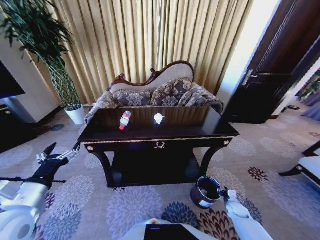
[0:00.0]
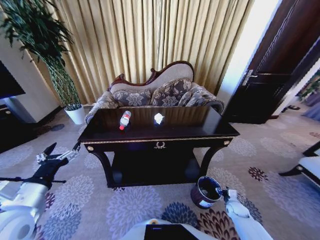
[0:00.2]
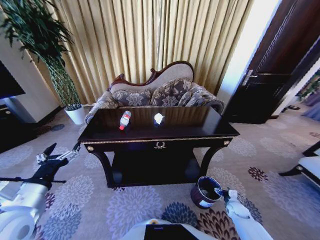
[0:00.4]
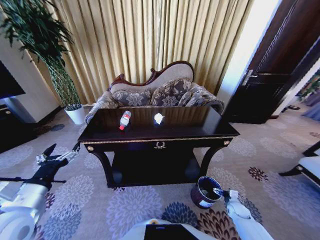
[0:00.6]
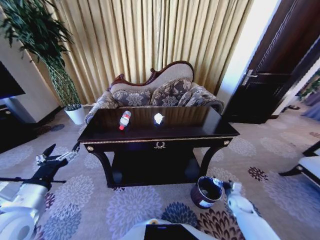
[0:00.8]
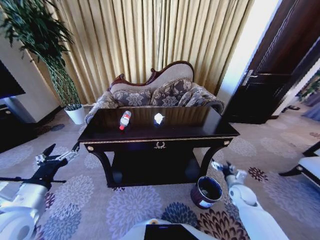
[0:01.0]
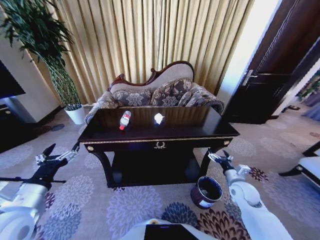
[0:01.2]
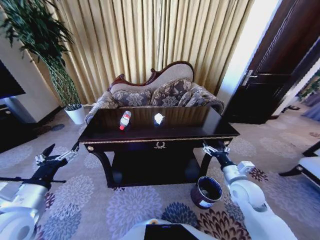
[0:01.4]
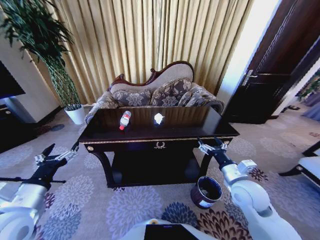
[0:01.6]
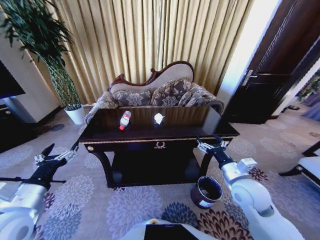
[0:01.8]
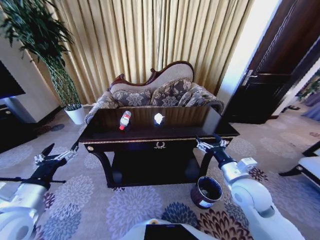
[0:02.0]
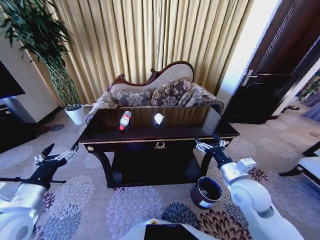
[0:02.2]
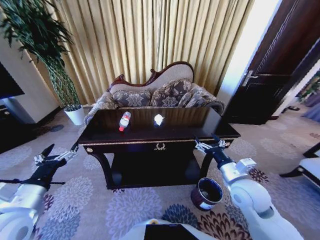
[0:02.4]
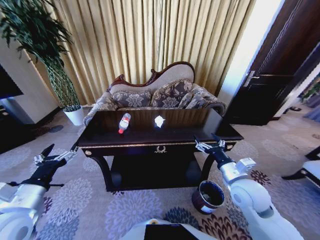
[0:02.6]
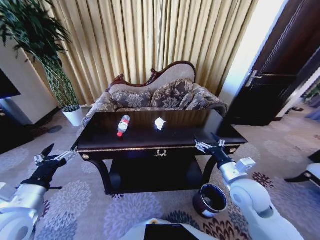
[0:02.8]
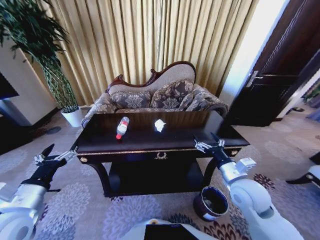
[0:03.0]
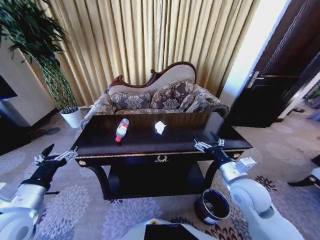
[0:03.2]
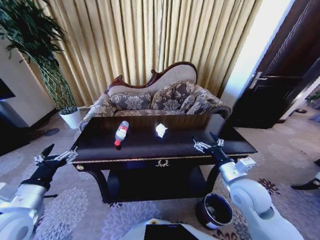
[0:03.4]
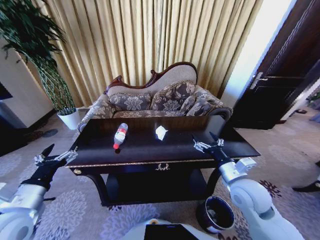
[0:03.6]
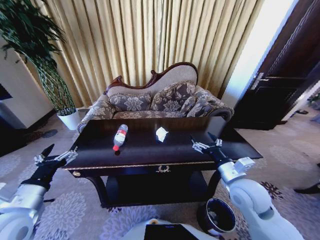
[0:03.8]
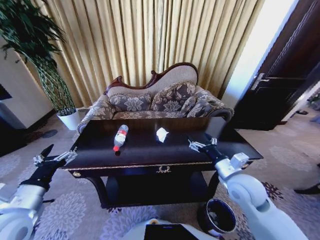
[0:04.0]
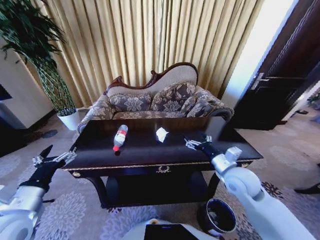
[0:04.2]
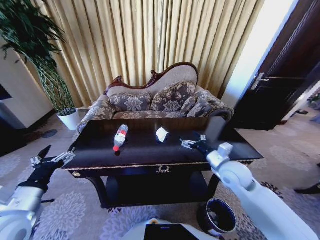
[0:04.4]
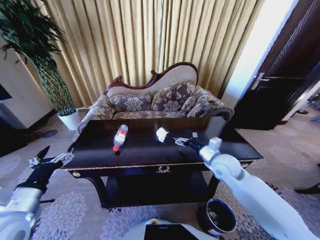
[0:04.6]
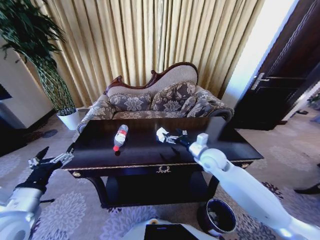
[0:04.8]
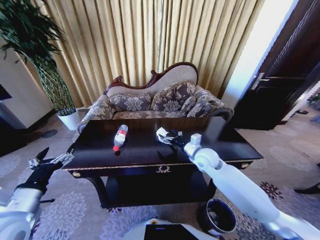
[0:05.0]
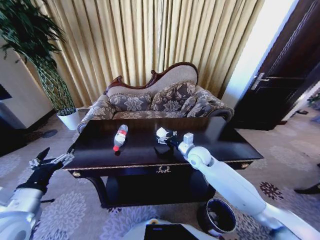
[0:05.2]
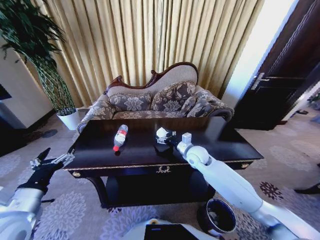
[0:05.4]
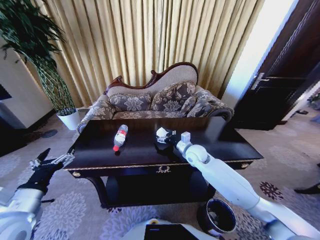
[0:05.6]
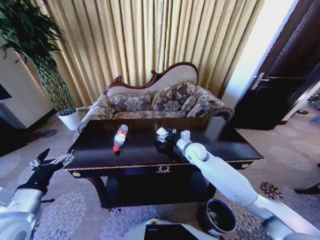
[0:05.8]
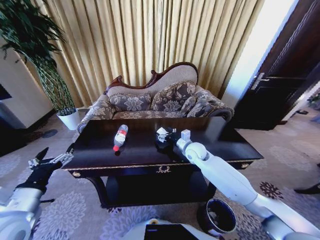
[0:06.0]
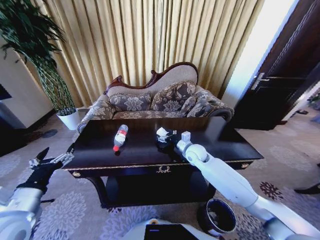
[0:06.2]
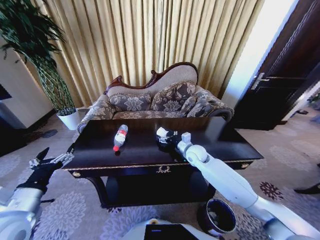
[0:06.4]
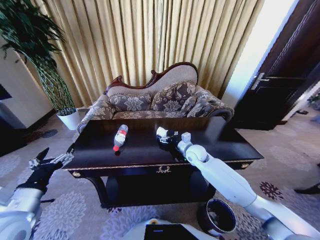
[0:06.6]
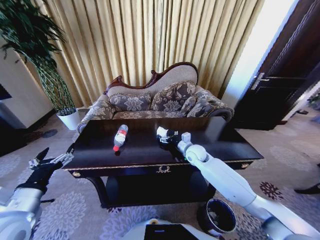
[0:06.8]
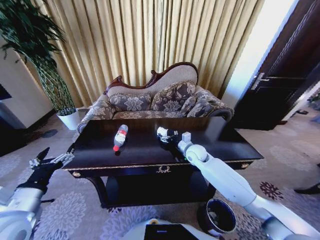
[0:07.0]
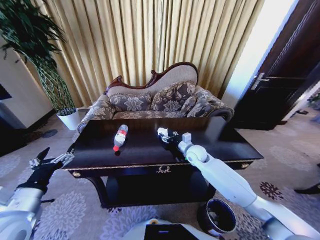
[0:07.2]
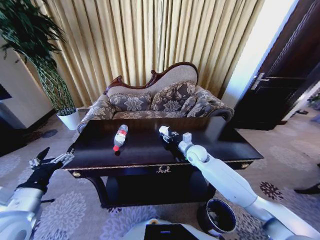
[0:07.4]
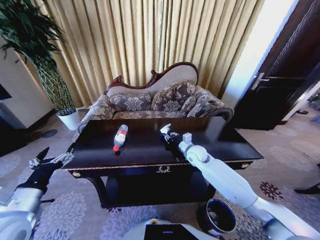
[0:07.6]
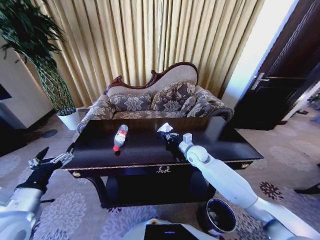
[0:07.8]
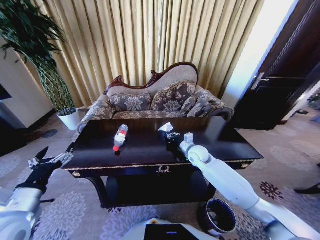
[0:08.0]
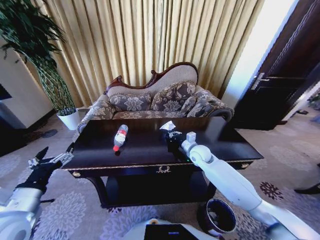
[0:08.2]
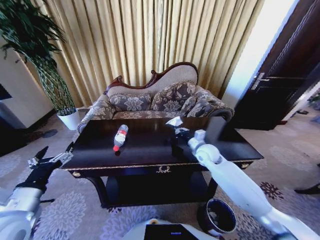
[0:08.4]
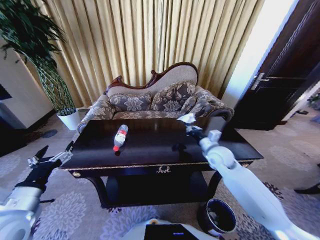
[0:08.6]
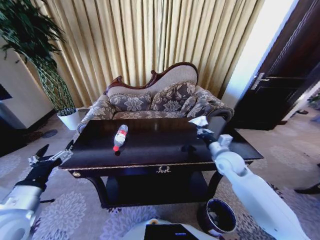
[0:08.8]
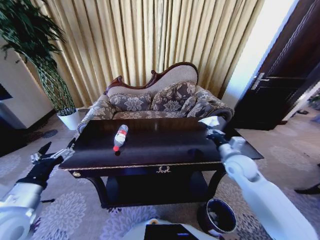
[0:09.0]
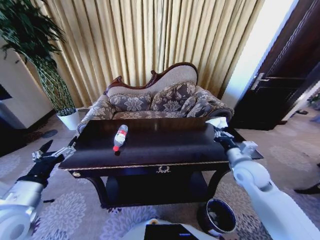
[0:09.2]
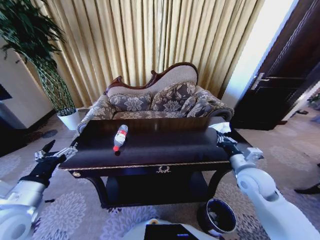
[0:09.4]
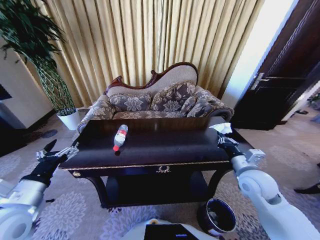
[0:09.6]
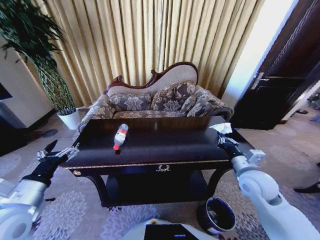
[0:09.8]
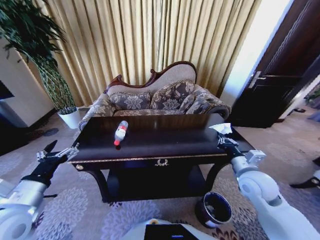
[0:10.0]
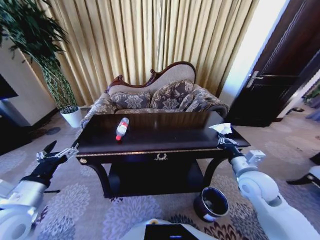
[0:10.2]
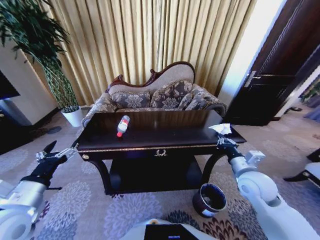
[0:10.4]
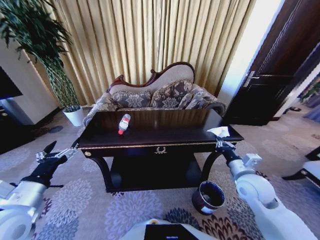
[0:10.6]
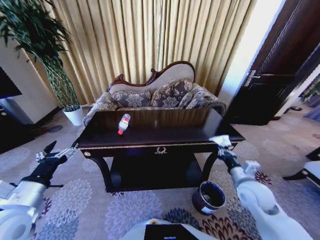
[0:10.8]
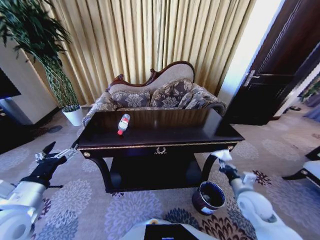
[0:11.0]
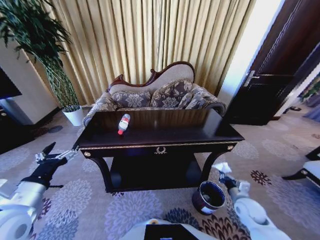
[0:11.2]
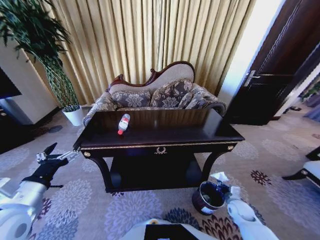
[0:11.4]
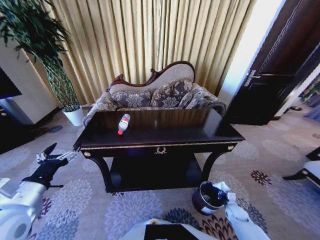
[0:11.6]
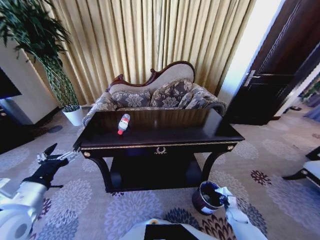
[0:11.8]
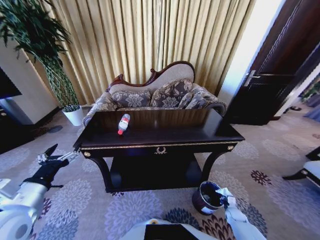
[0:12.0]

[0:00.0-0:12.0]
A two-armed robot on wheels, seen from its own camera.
Task of the whole recording: Move to the front of the table and place the trash on the table into the trash bin.
0:00.0 to 0:01.6: The right gripper shifts some 35 cm upward and to the left, and opens its fingers.
0:03.0 to 0:04.4: The right gripper travels forward by approximately 5 cm.
0:04.4 to 0:06.0: The right gripper is displaced forward and to the left by roughly 15 cm.
0:06.0 to 0:07.6: The right gripper closes up.
0:07.6 to 0:09.0: The right gripper heads to the right, backward and upward, covering approximately 20 cm.
0:09.0 to 0:10.4: The right gripper shifts approximately 5 cm backward.
0:10.4 to 0:12.0: The right gripper goes about 40 cm downward.

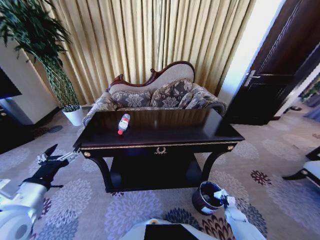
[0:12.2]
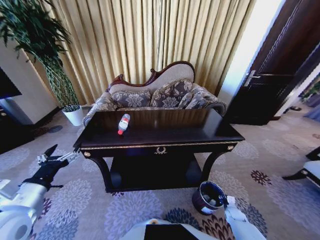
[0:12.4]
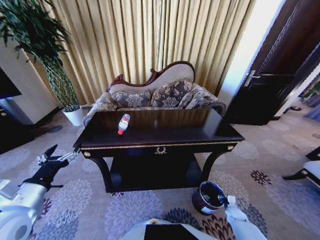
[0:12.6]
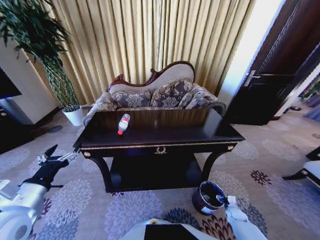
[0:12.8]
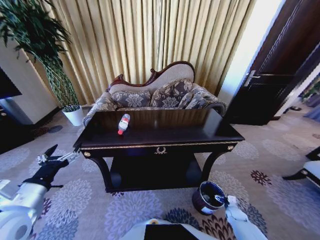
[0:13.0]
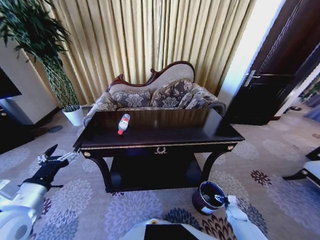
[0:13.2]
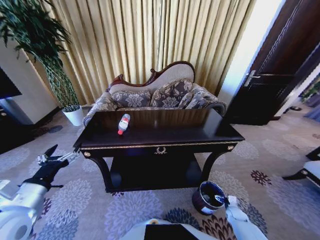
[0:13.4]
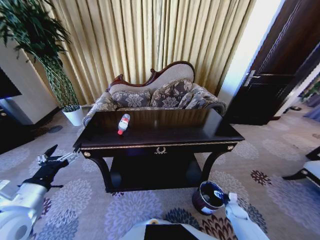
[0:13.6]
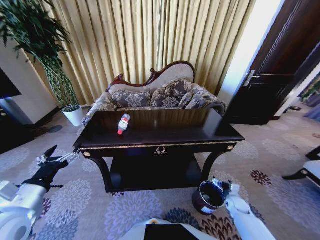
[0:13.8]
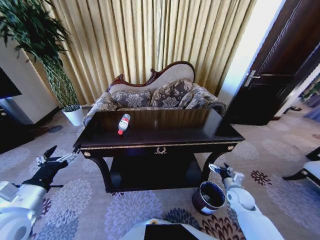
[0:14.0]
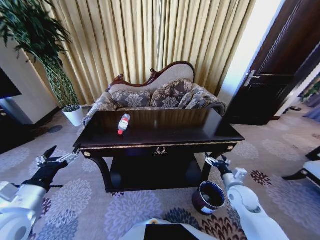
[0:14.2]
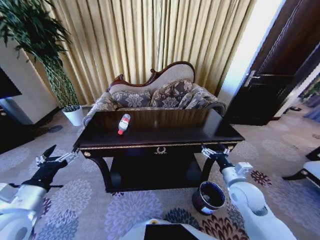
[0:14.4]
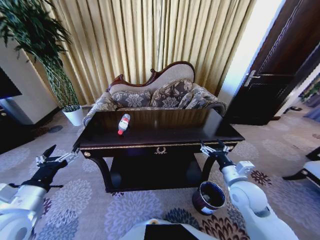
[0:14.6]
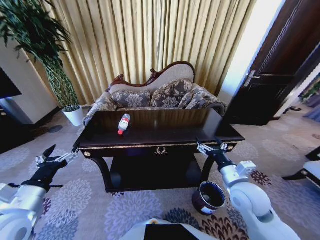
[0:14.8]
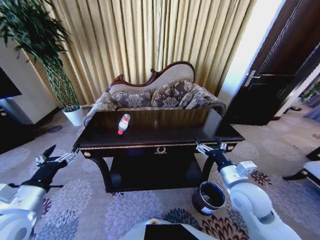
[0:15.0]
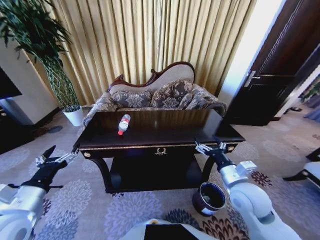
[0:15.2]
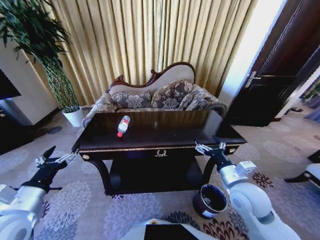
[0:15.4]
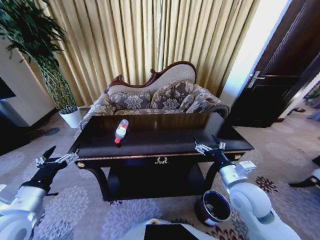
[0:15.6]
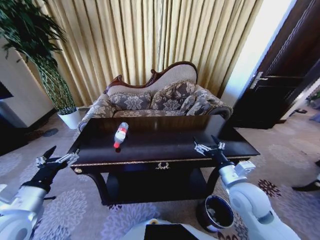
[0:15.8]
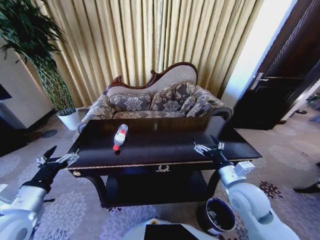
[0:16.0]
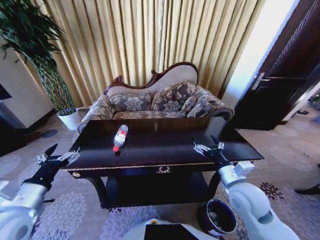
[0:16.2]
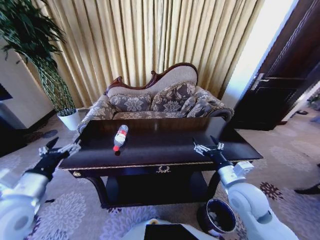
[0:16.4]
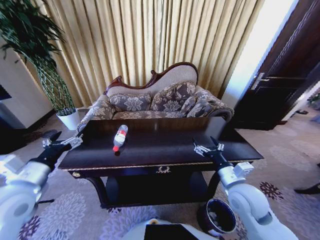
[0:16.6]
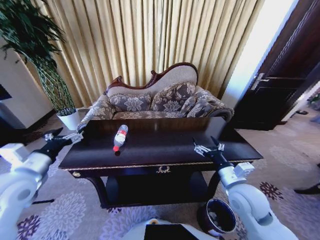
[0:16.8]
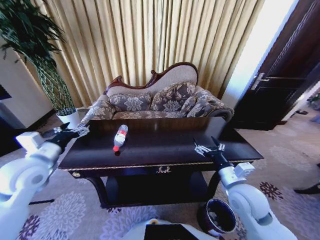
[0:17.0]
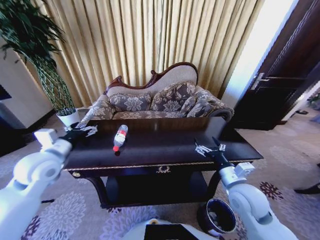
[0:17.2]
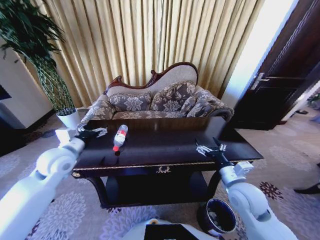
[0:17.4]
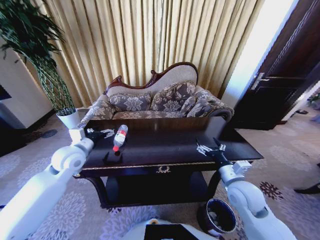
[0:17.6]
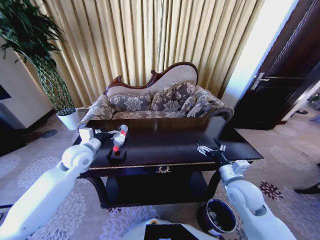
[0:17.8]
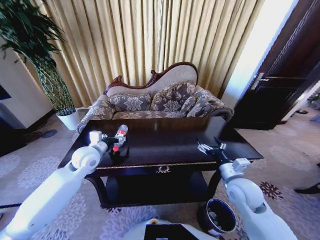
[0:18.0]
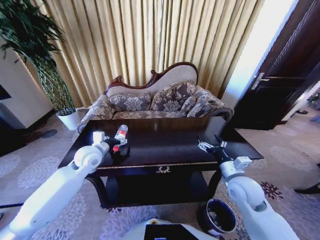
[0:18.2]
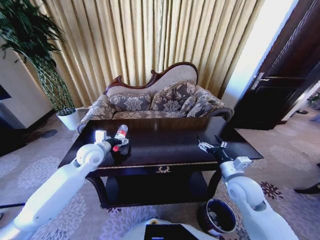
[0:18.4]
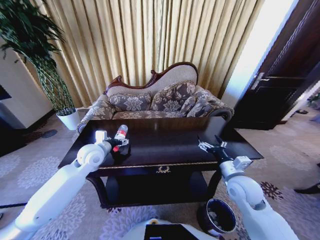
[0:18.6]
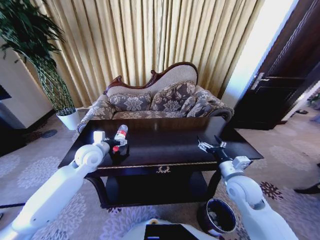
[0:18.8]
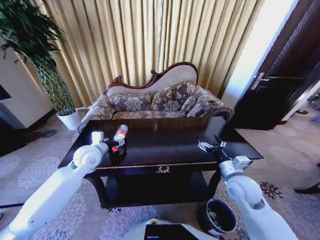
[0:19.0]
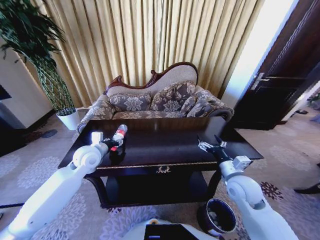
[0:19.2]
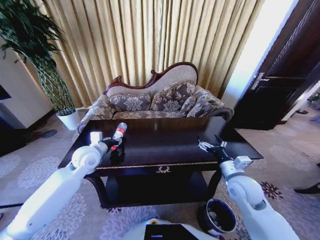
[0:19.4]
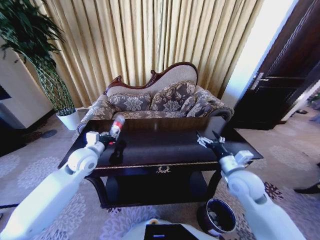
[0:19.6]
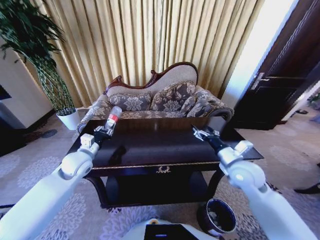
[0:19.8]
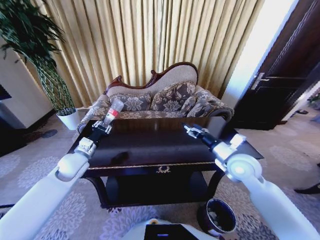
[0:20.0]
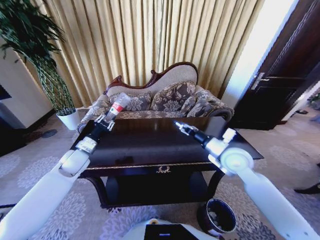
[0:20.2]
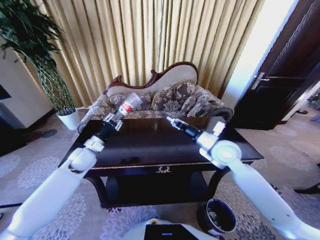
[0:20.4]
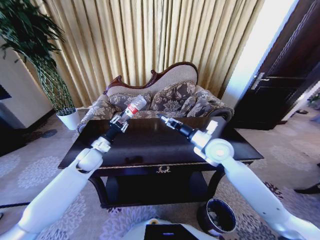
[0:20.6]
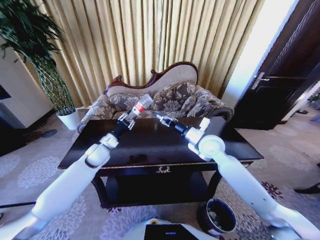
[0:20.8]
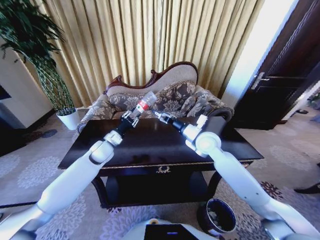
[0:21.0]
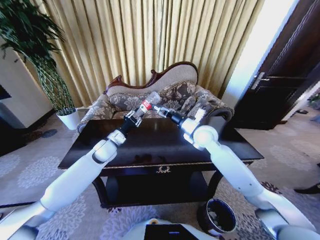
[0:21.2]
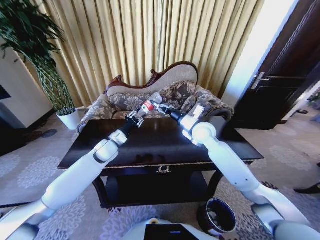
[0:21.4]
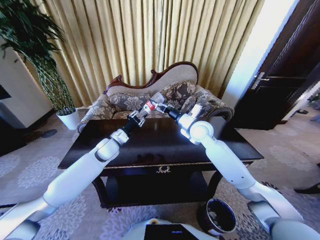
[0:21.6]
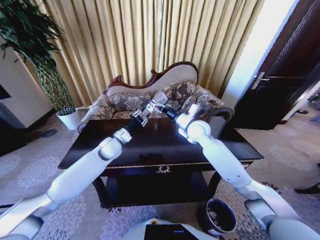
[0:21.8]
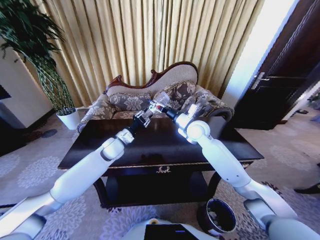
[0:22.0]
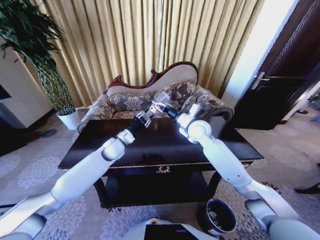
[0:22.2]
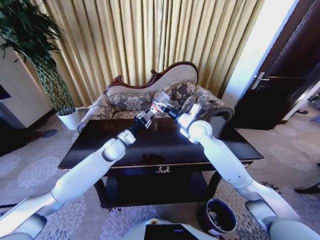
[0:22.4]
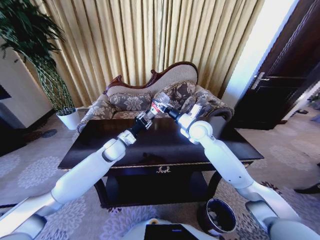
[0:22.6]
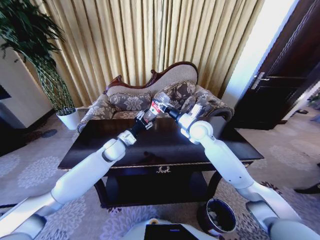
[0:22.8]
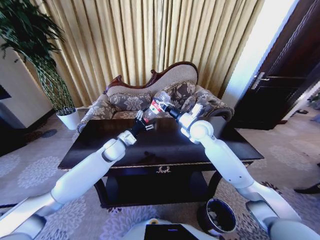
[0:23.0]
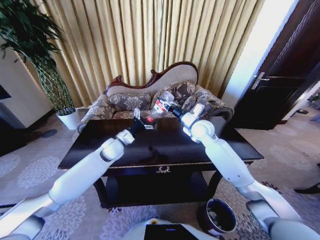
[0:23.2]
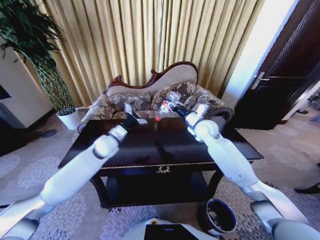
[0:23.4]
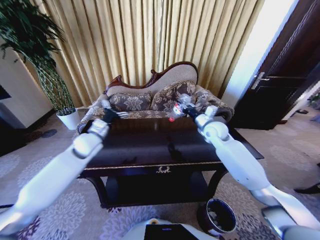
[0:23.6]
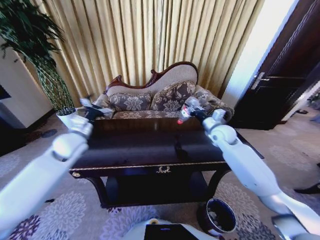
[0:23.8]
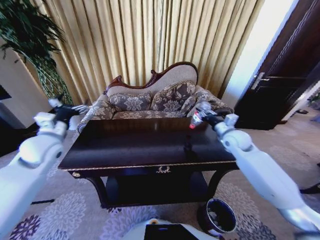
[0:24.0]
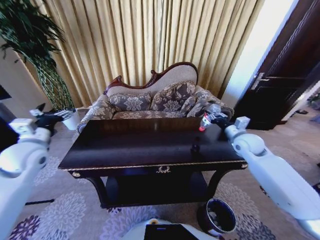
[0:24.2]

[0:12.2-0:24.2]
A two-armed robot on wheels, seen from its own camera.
Task of the whole recording: Move to the front of the table and place the trash on the table into the trash bin.
0:12.2 to 0:13.8: The right gripper travels upward by some 10 cm, and opens its fingers.
0:13.8 to 0:15.2: The right gripper travels upward and to the left by about 35 cm.
0:15.2 to 0:16.6: The left gripper goes approximately 5 cm forward.
0:16.6 to 0:18.2: The left gripper moves forward, to the right and downward, approximately 20 cm.
0:18.2 to 0:19.8: The right gripper changes place by about 5 cm. The left gripper closes its fingers.
0:19.8 to 0:21.2: The right gripper goes some 20 cm forward and to the left. The left gripper travels to the right and forward by approximately 10 cm.
0:21.2 to 0:22.6: The right gripper closes up.
0:22.6 to 0:24.2: The right gripper moves to the right, approximately 20 cm. Meanwhile the left gripper shifts some 30 cm to the left, upward and backward, and opens its fingers.
